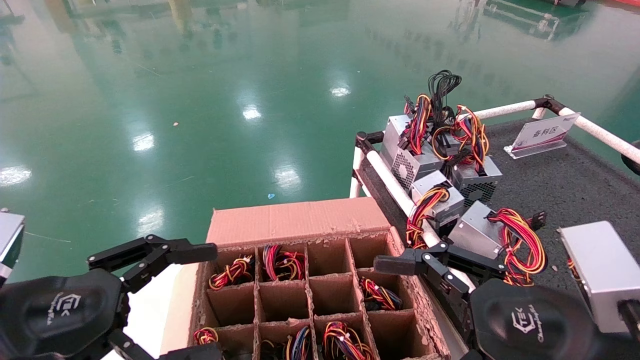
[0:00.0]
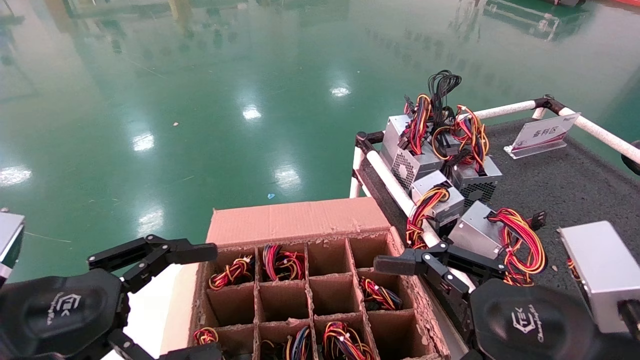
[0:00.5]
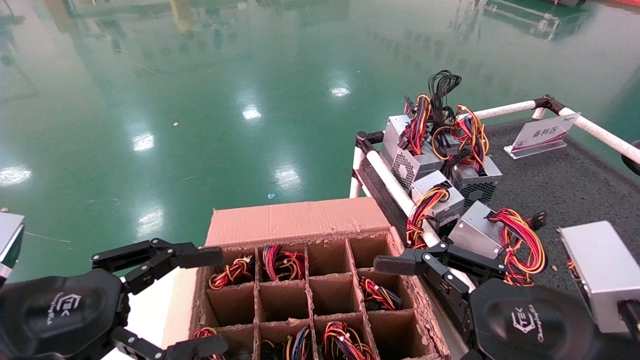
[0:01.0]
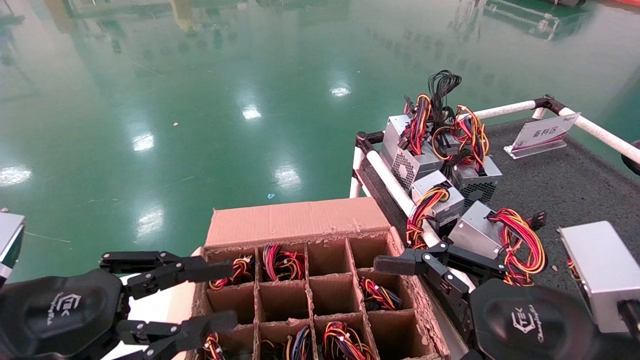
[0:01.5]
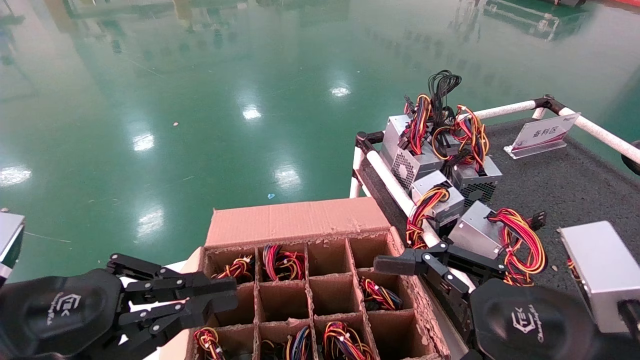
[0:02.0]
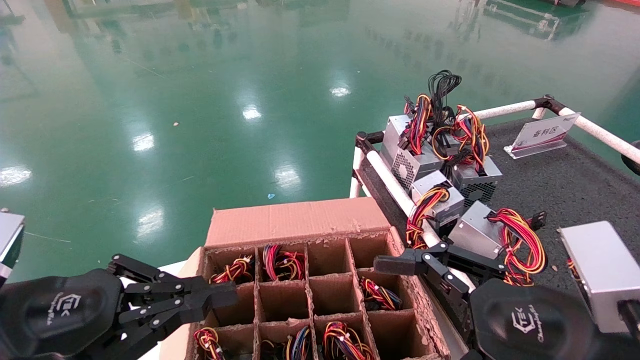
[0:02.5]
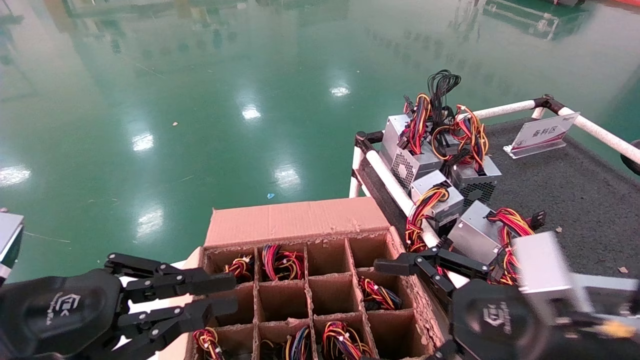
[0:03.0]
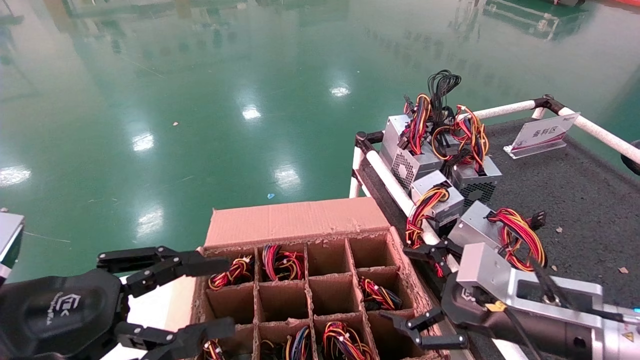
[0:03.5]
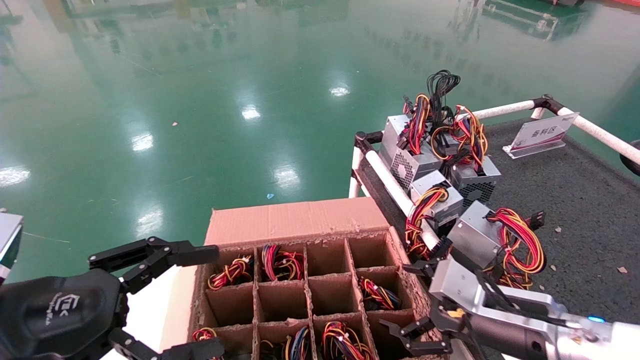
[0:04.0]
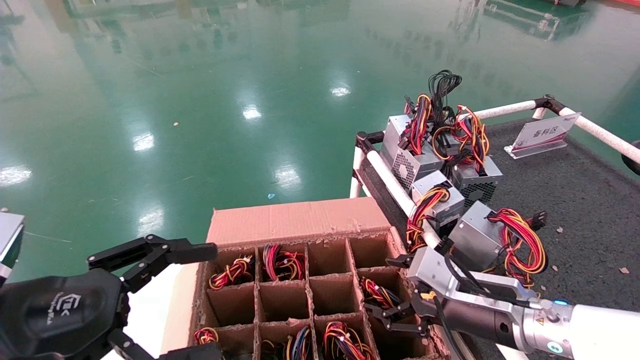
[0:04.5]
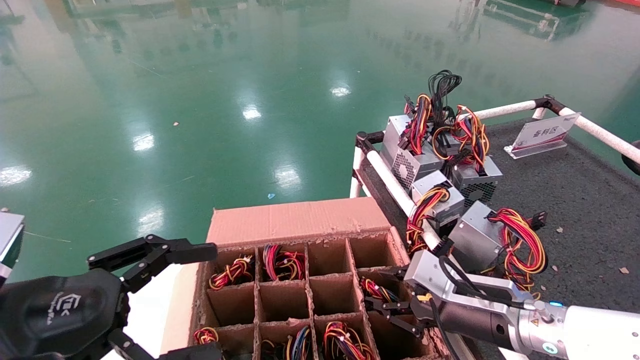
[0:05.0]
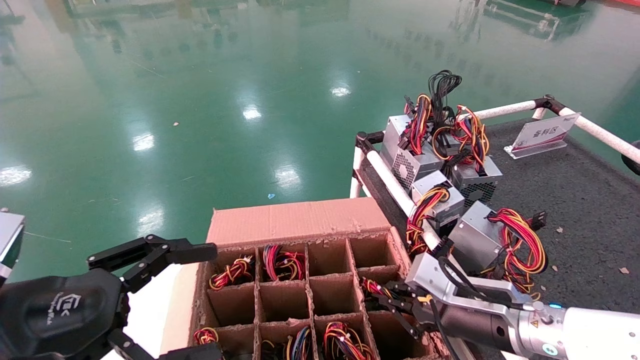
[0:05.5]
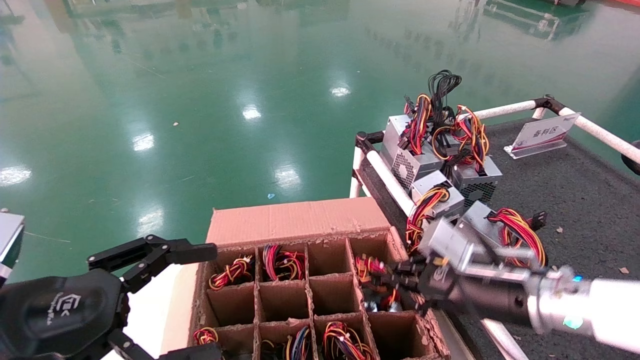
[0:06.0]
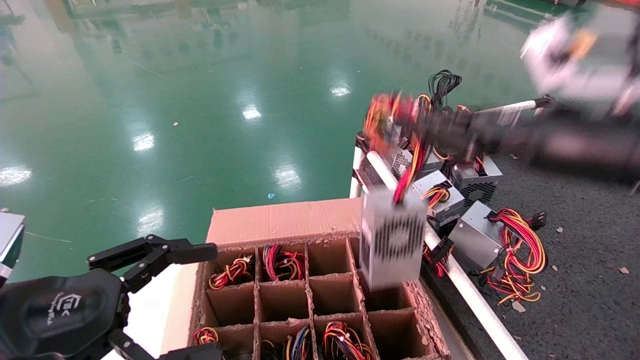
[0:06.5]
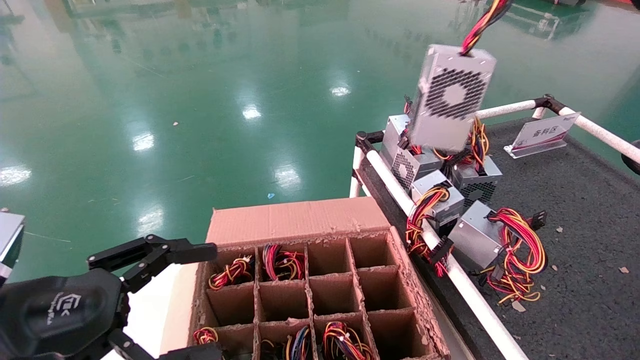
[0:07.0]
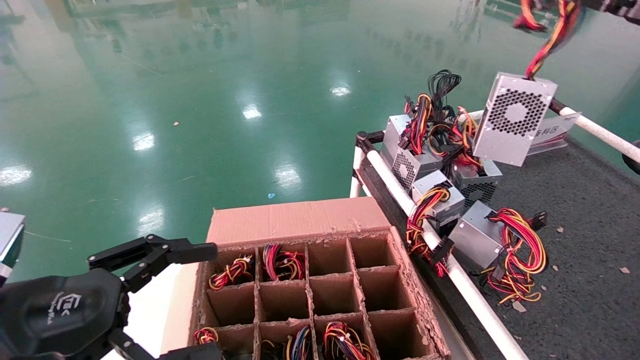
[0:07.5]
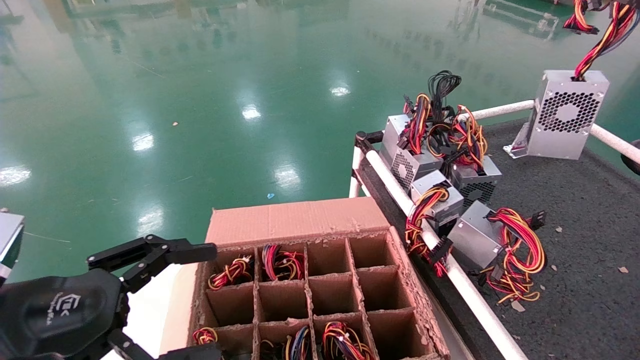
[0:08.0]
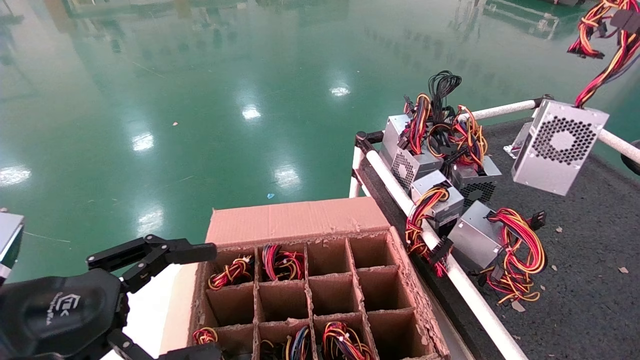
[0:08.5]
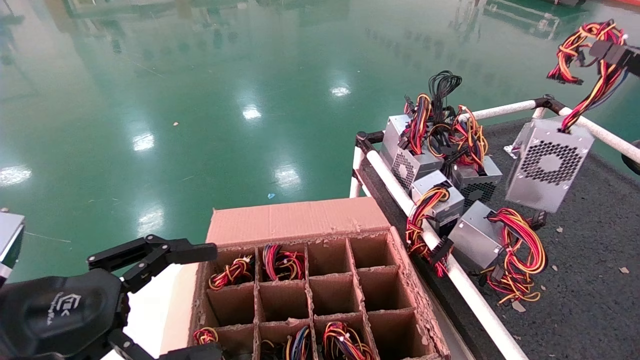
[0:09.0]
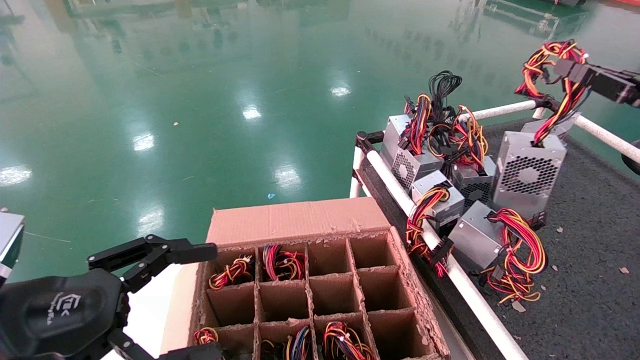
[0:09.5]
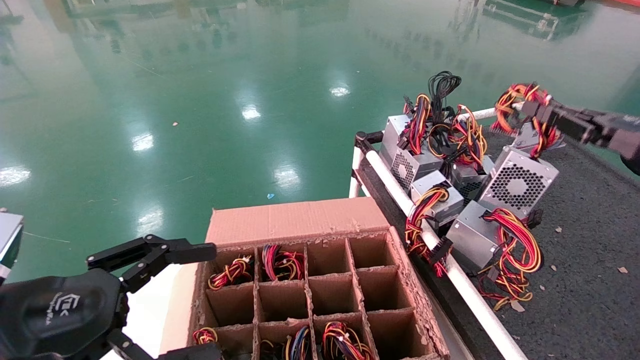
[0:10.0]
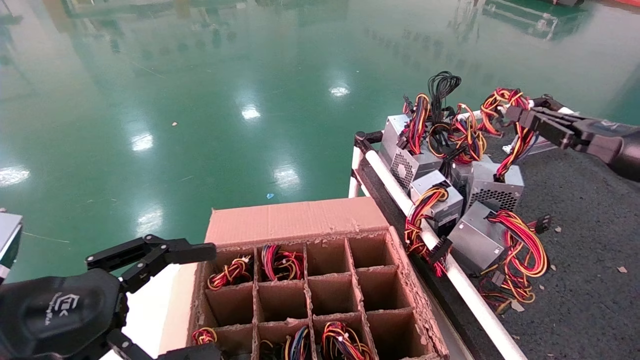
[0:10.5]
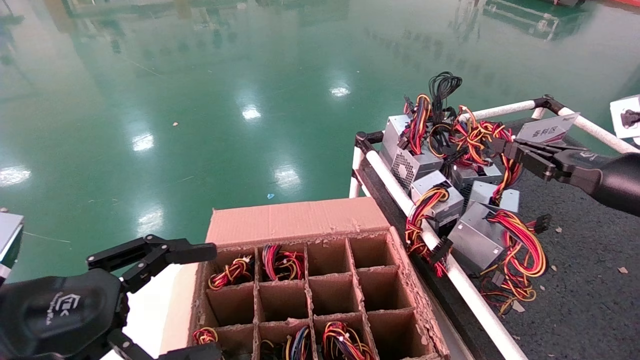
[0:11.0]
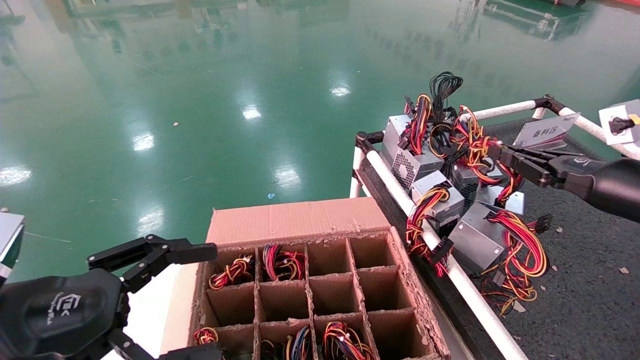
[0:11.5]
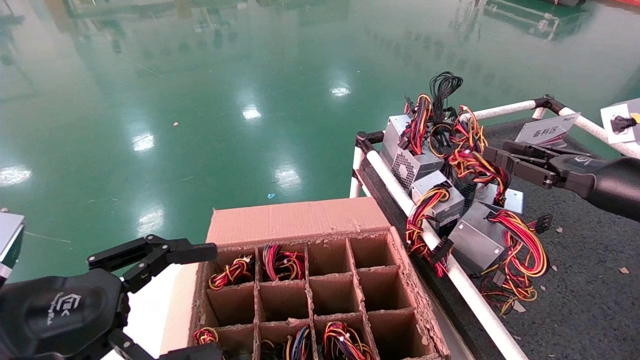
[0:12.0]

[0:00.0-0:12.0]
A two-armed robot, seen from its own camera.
Step, 0:03.5 to 0:06.0: Grab and lift the power supply from the large box.
0:00.0 to 0:02.0: The left gripper closes its fingers.
0:02.0 to 0:04.0: The right gripper heads forward and downward, covering approximately 15 cm. Meanwhile the left gripper opens up.
0:04.0 to 0:06.0: The right gripper moves upward, some 5 cm, and closes its fingers.
0:06.0 to 0:08.0: The right gripper moves upward and to the right, some 35 cm.
0:08.0 to 0:10.0: The right gripper is displaced downward by roughly 10 cm.
0:10.0 to 0:12.0: The right gripper moves about 5 cm.

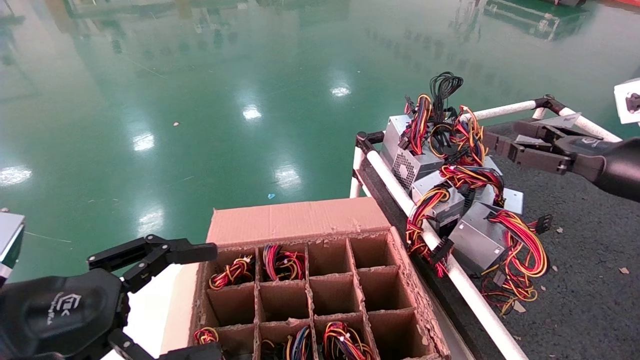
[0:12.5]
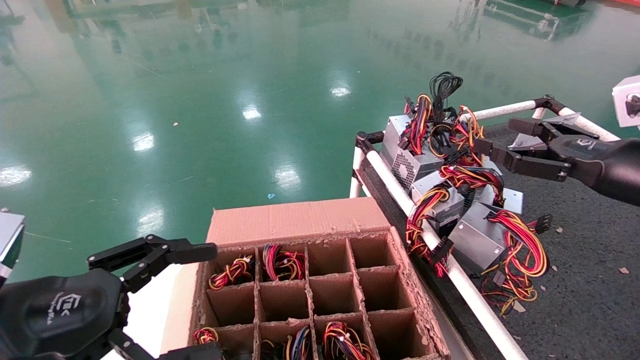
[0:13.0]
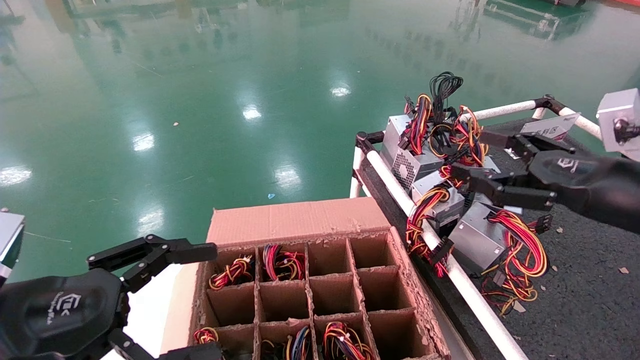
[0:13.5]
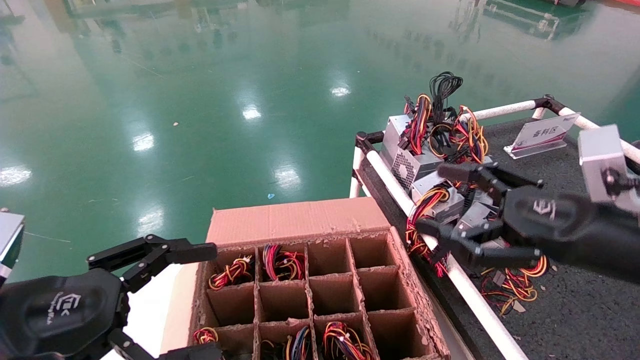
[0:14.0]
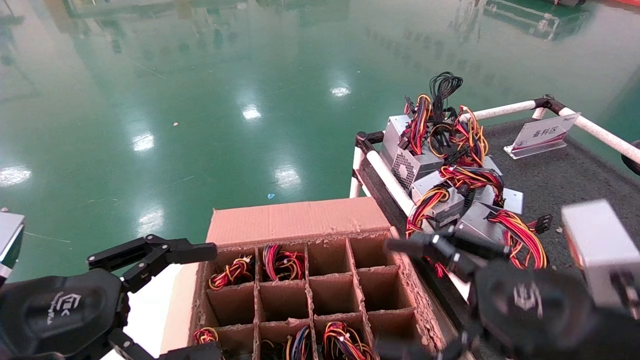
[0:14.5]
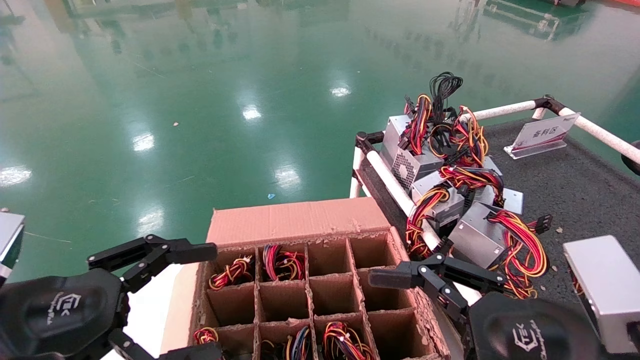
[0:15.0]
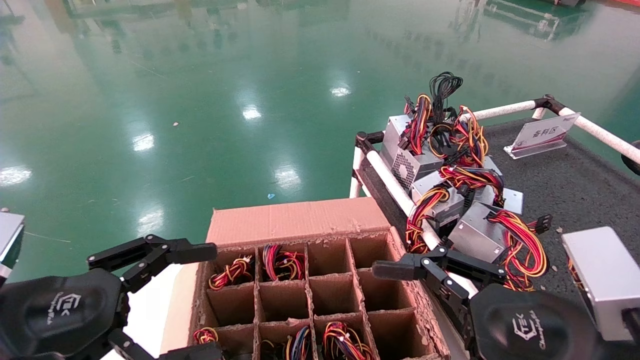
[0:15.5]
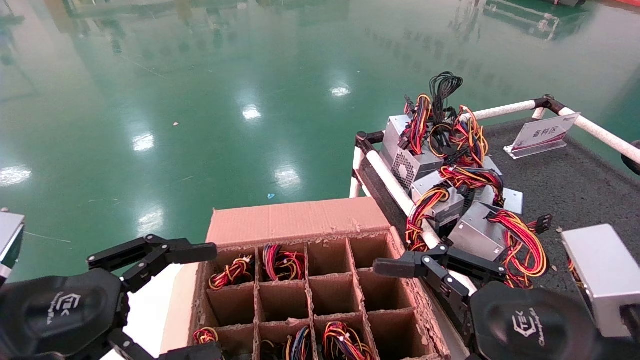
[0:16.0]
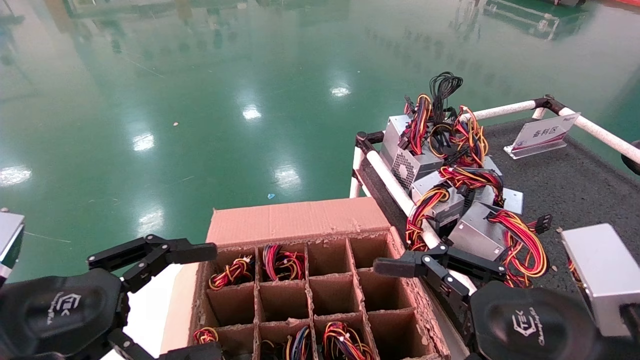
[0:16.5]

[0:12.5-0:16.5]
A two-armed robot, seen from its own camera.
0:12.5 to 0:14.5: The right gripper is displaced to the left, backward and downward by approximately 20 cm.
0:14.5 to 0:16.5: The grippers make only small movements.
